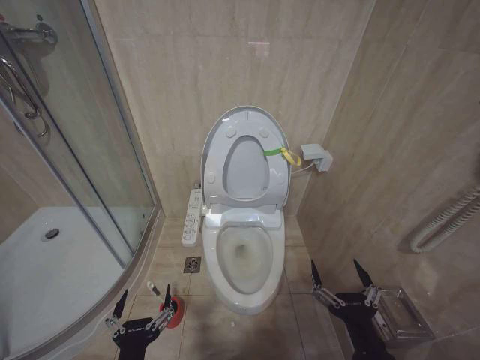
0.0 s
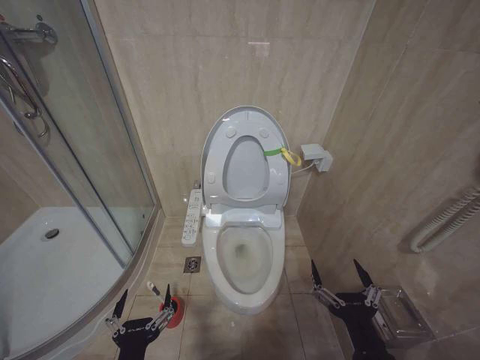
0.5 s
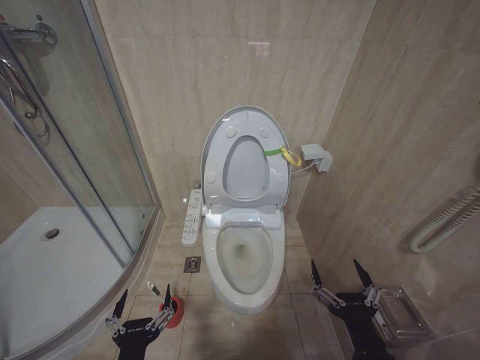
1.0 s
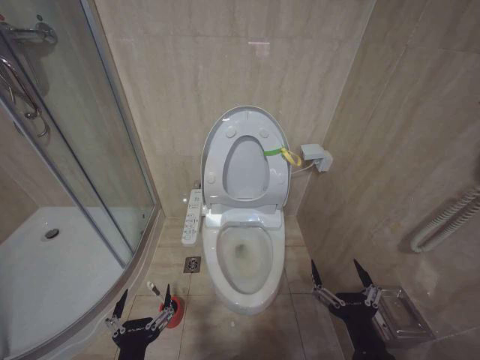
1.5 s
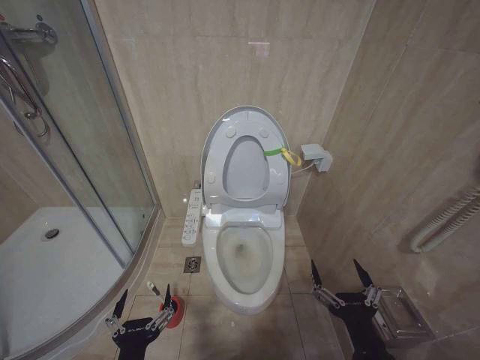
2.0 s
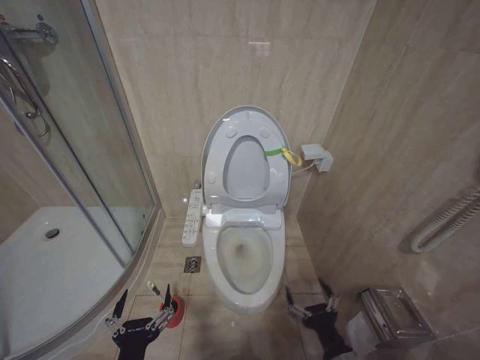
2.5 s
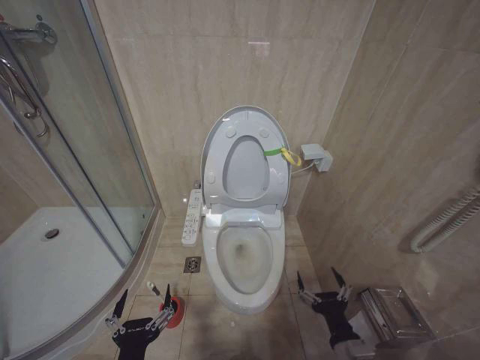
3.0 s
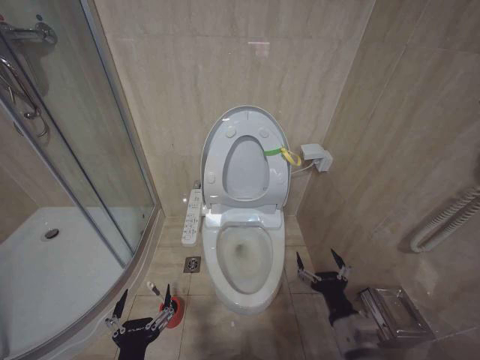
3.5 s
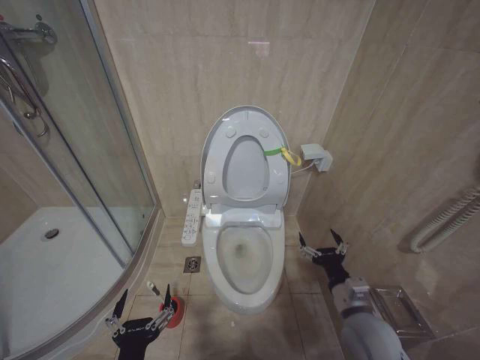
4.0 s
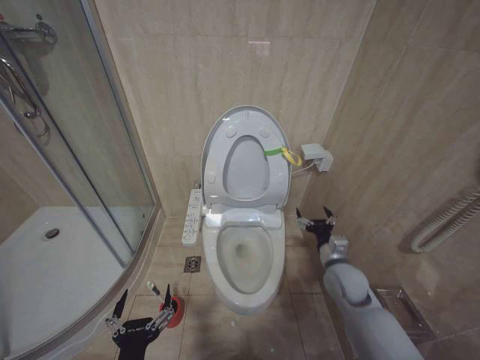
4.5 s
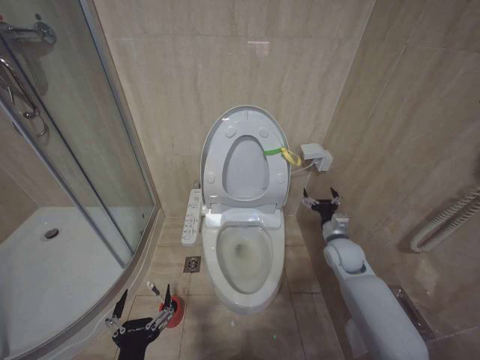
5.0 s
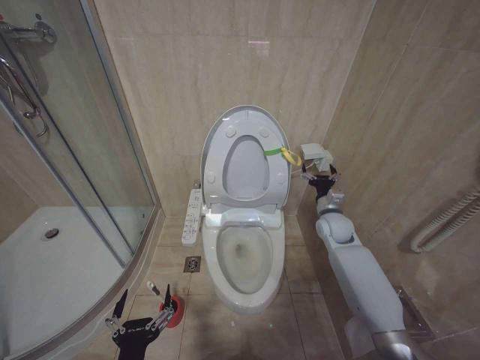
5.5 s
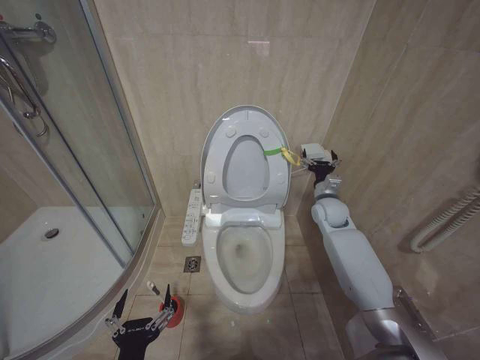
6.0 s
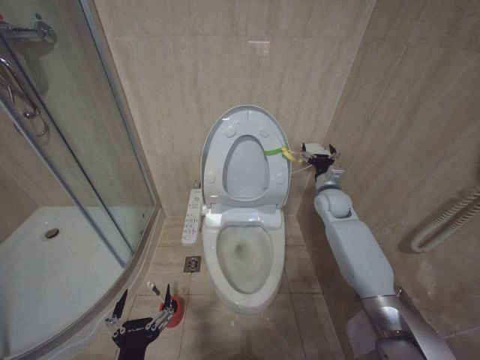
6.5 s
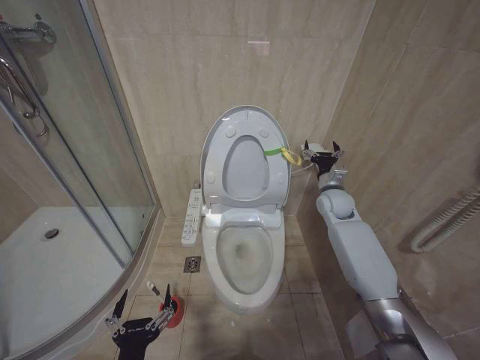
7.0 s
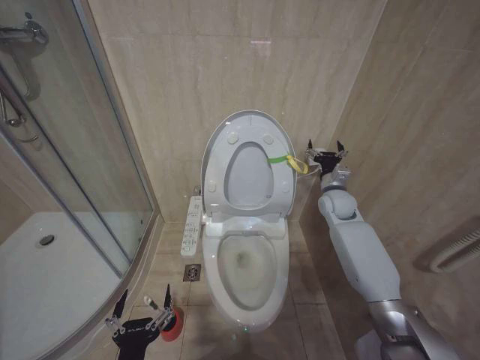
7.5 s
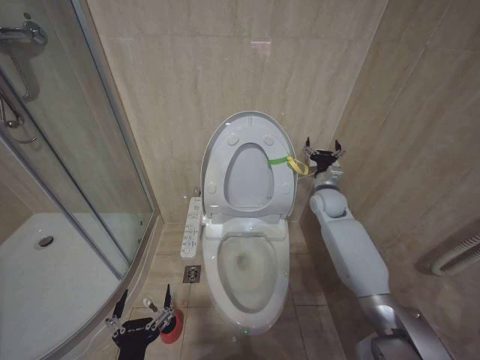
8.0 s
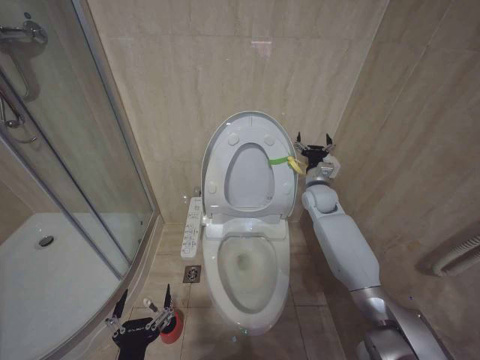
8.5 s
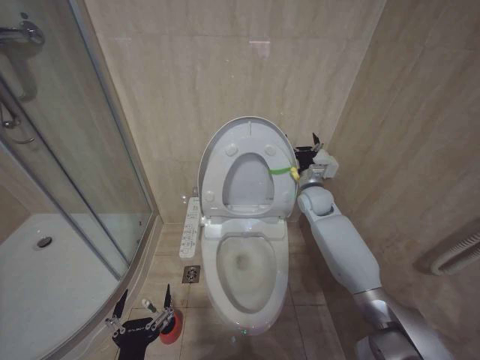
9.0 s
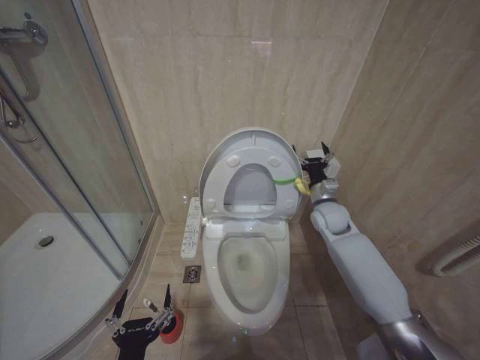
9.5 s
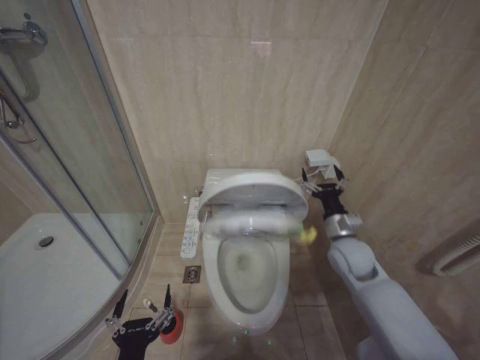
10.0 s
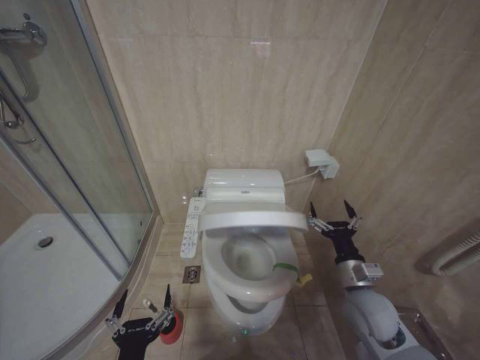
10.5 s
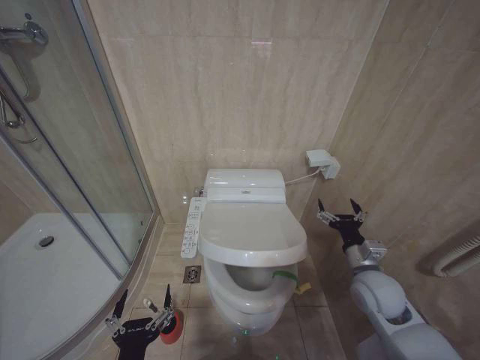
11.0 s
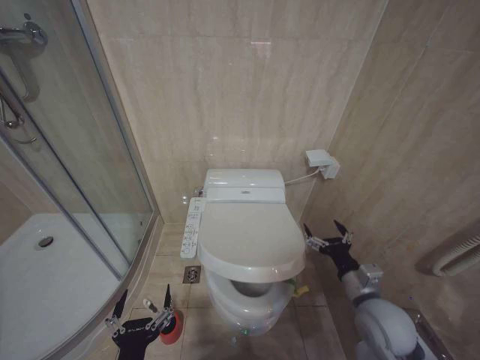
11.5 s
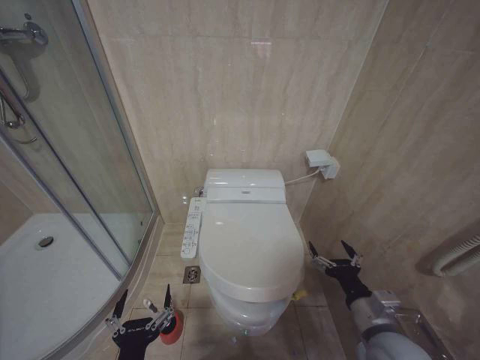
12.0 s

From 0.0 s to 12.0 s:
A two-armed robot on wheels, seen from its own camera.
Task of the whole recording: Open the toilet lid, clean the toilet bowl with a toilet brush, close the toilet lid, and flush.
From 0.0 s to 2.0 s: Neither gripper changes place.
From 2.0 s to 4.0 s: The right gripper moves forward, about 15 cm.
From 4.0 s to 6.0 s: The right gripper shifts approximately 30 cm forward.
From 6.0 s to 8.0 s: The grippers make only small movements.
From 8.0 s to 10.0 s: The right gripper is displaced backward by about 15 cm.
From 10.0 s to 12.0 s: The right gripper moves forward and backward over approximately 20 cm, changing direction 2 times.

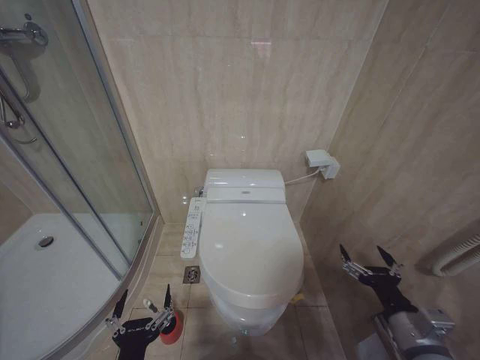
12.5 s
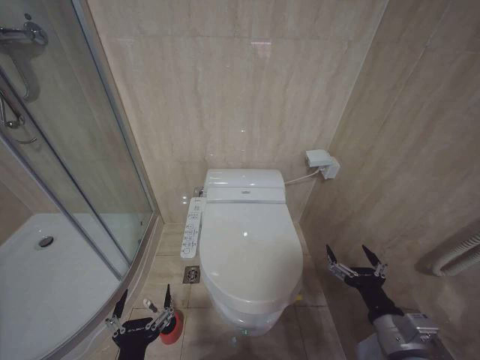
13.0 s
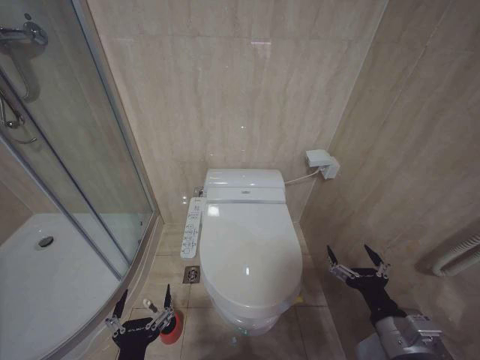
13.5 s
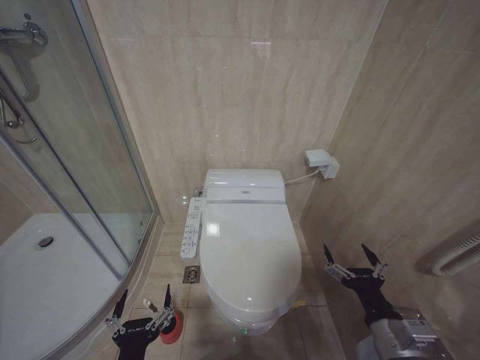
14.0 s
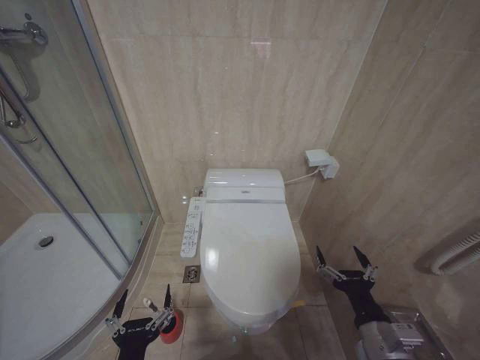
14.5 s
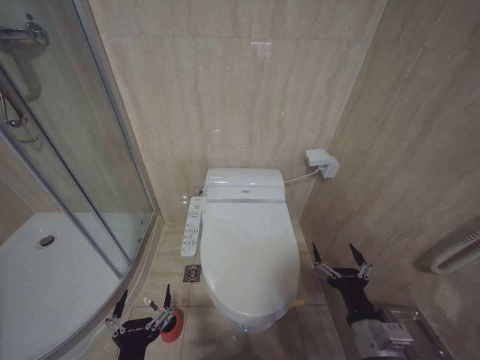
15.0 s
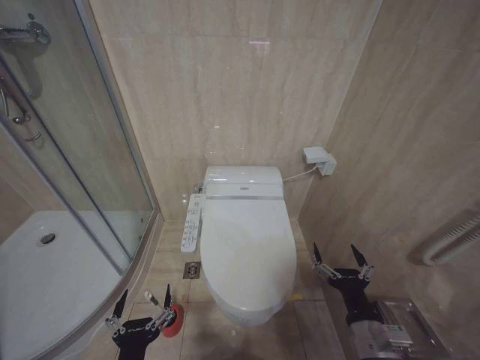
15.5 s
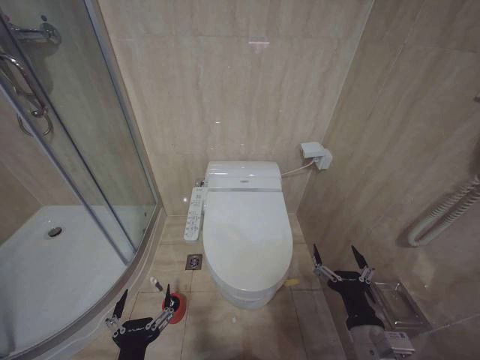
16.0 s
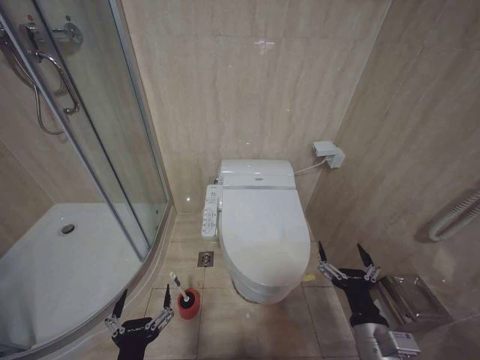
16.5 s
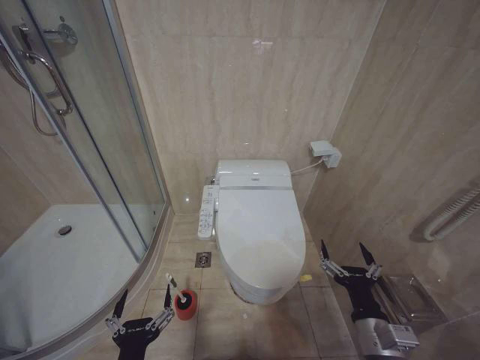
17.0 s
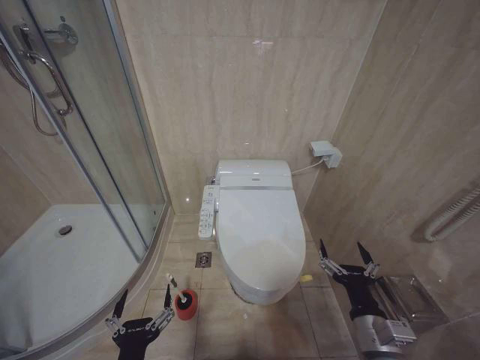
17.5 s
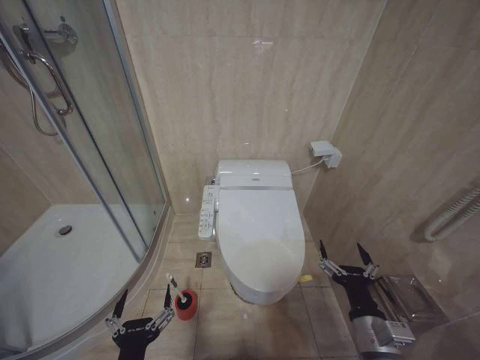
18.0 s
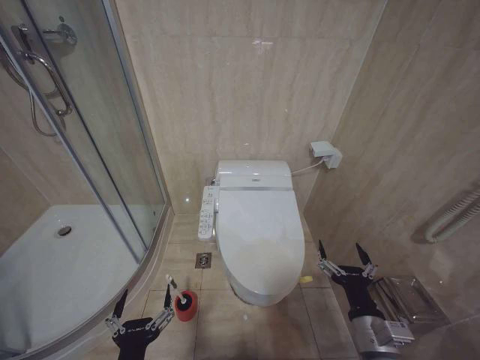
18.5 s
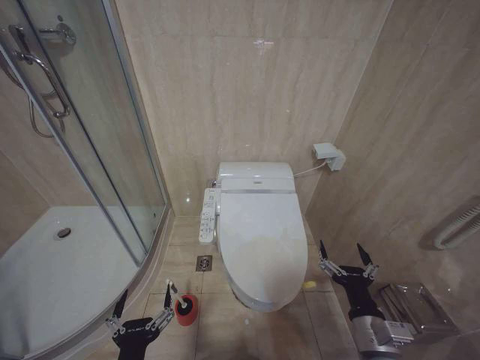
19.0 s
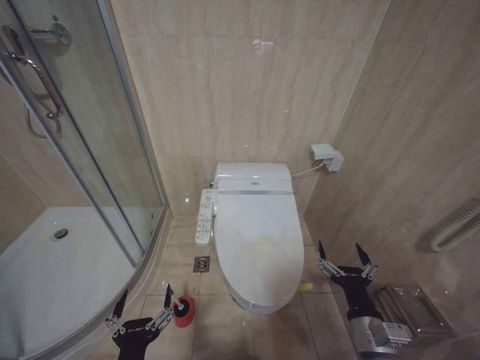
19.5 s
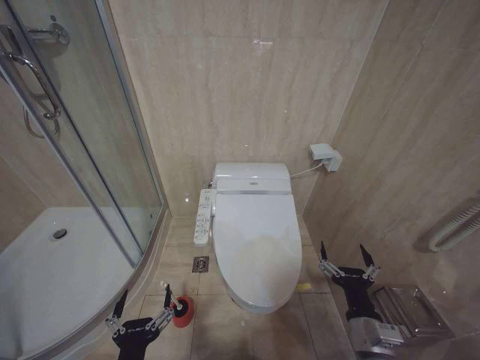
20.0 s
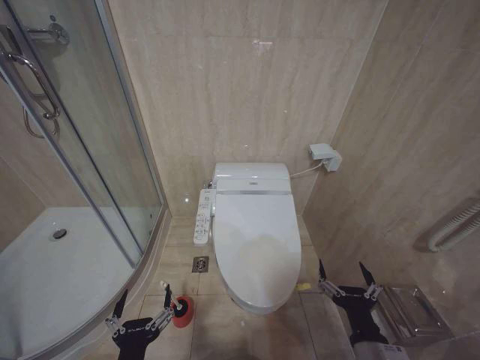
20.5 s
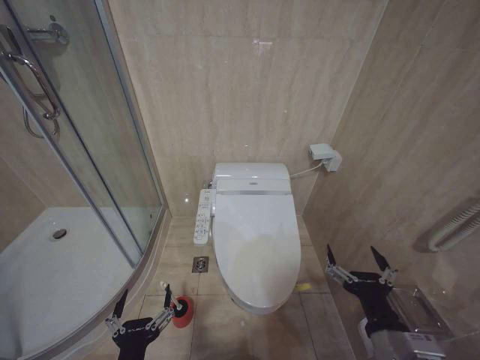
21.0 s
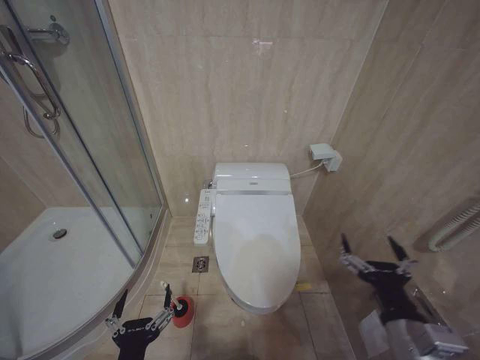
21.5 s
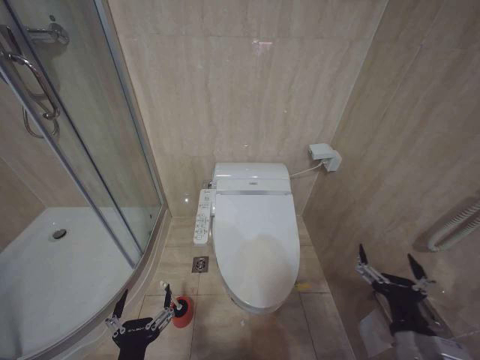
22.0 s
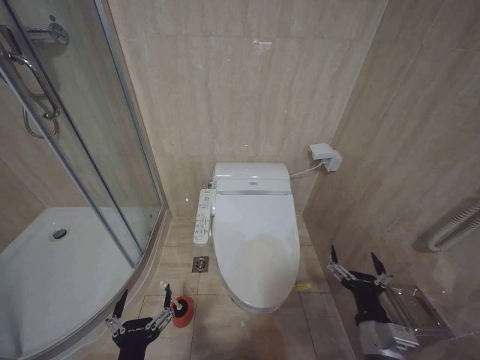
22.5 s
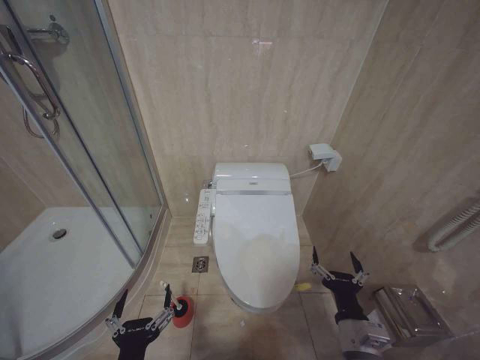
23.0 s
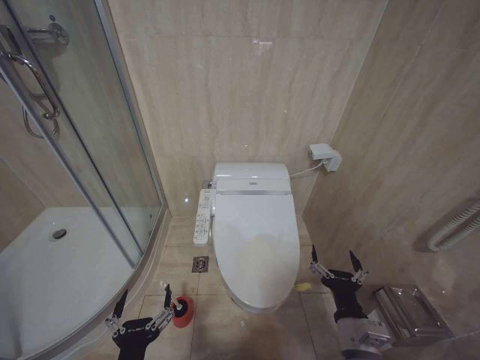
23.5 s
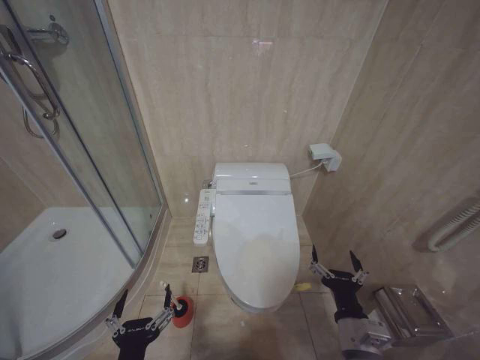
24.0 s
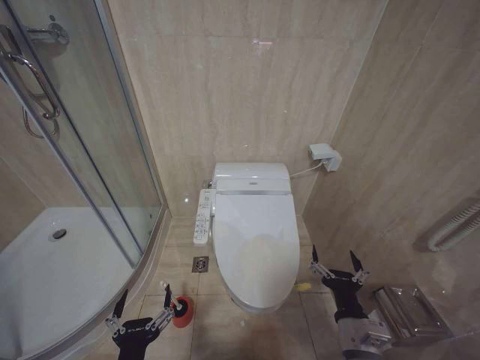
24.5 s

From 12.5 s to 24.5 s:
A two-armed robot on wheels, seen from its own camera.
Task of the whole recording: Open the toilet lid, clean the toilet bowl with a toilet brush, close the toilet lid, and flush.
From 12.5 s to 14.5 s: The right gripper travels to the left by approximately 5 cm.
From 14.5 s to 20.5 s: There are only small adjustments of the grippers.
From 20.5 s to 22.5 s: The right gripper moves some 10 cm upward and comes back.
From 22.5 s to 24.5 s: The grippers move only a little.

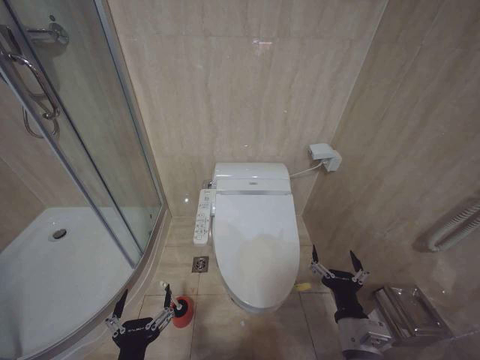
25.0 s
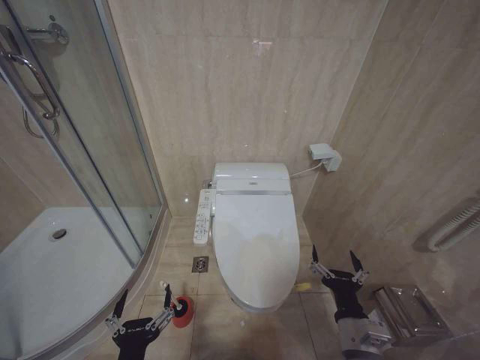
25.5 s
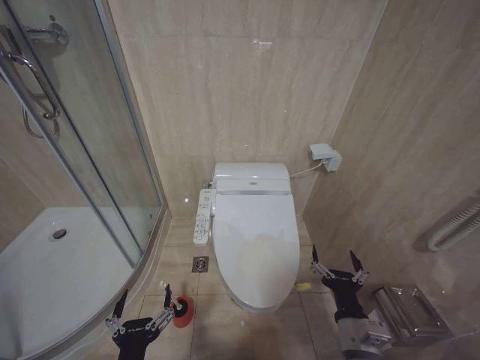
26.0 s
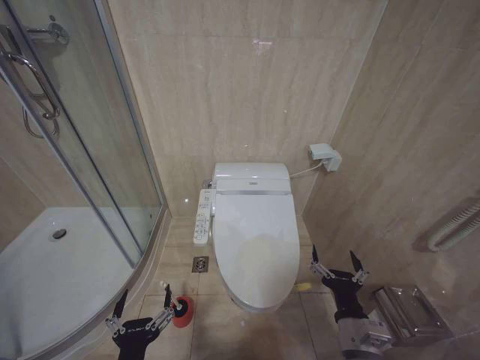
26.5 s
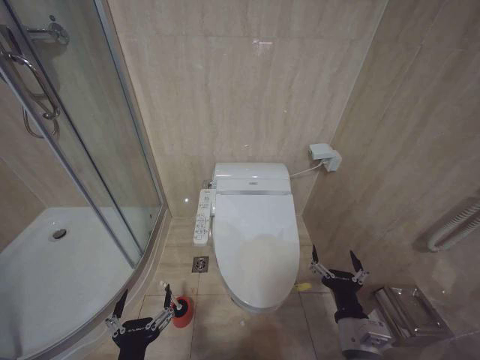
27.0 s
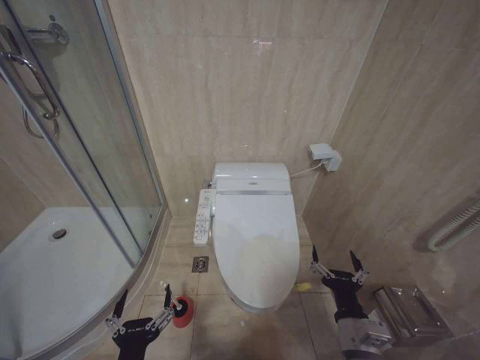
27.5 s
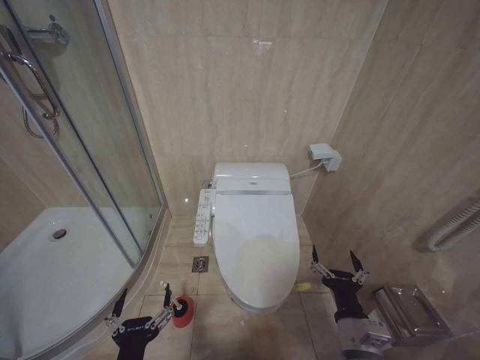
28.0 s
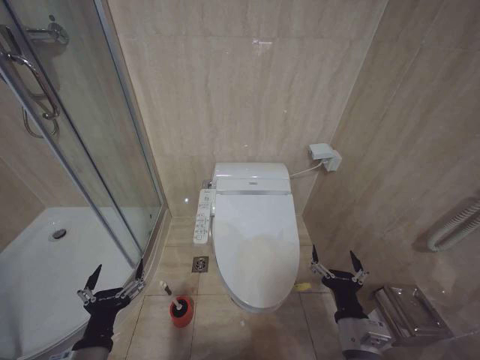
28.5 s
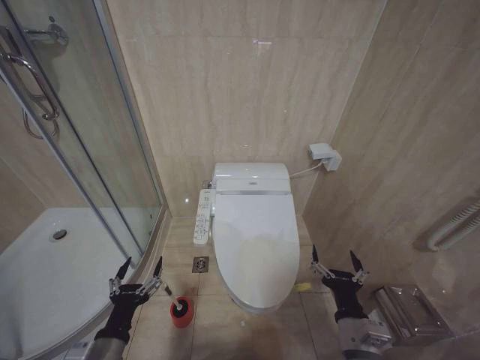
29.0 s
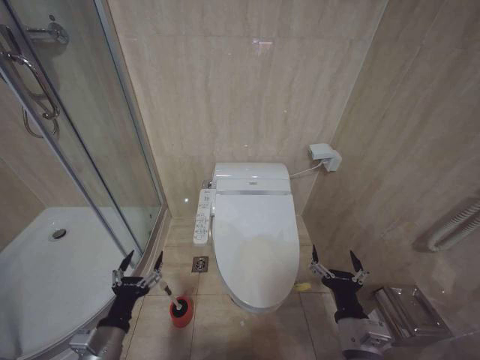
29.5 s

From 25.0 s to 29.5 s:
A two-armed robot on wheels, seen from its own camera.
Task of the whole recording: Open the toilet lid, clean the toilet bowl with a toilet brush, close the toilet lid, and flush.
From 25.0 s to 27.0 s: Both grippers stay put.
From 27.0 s to 29.5 s: The left gripper heads forward and to the left, covering approximately 15 cm.
